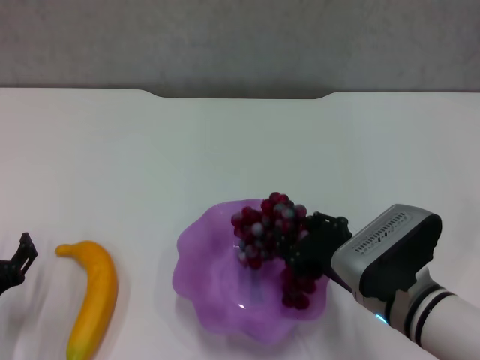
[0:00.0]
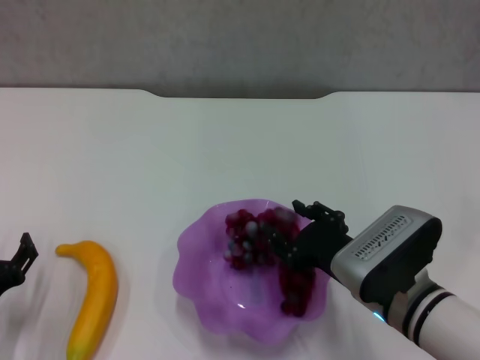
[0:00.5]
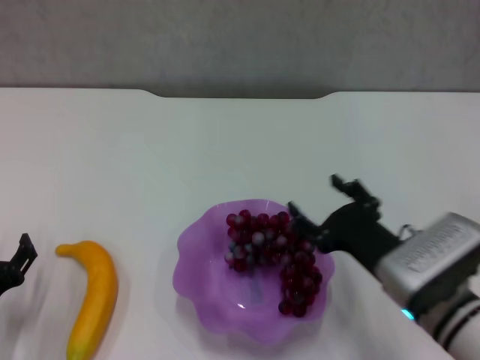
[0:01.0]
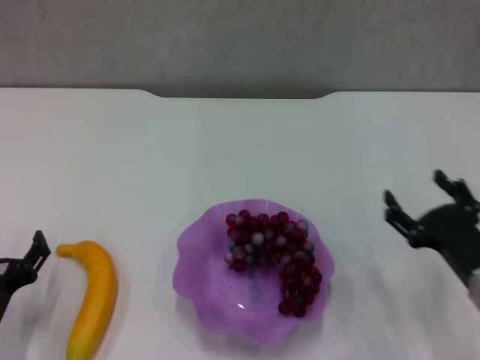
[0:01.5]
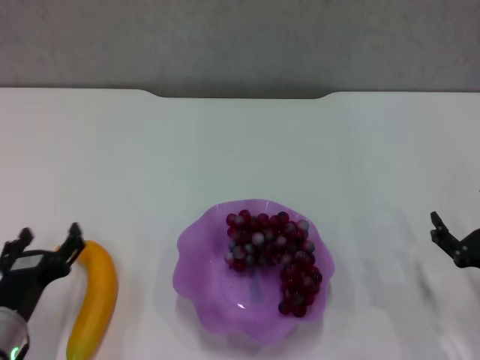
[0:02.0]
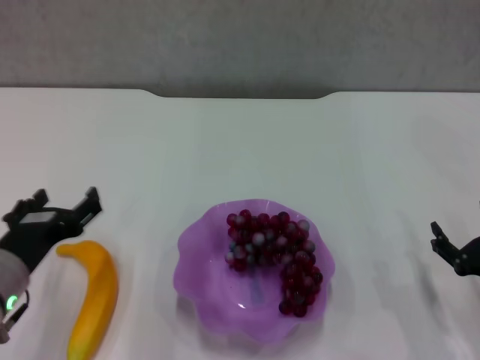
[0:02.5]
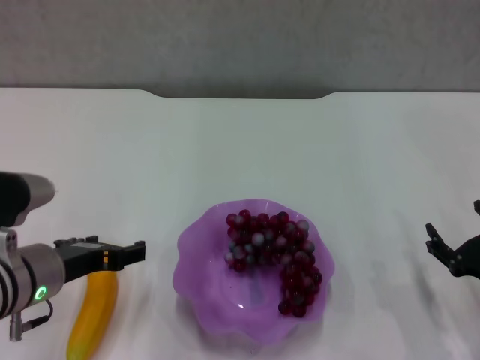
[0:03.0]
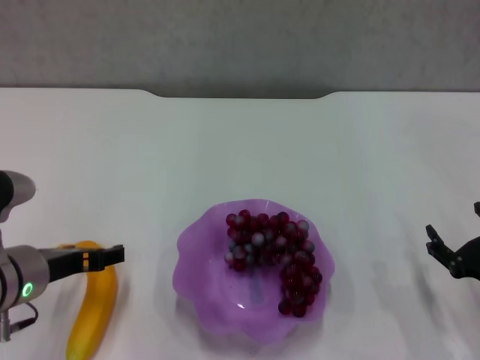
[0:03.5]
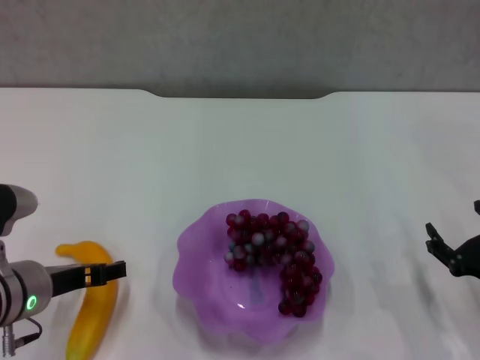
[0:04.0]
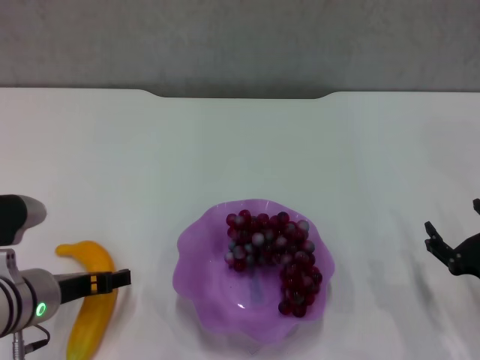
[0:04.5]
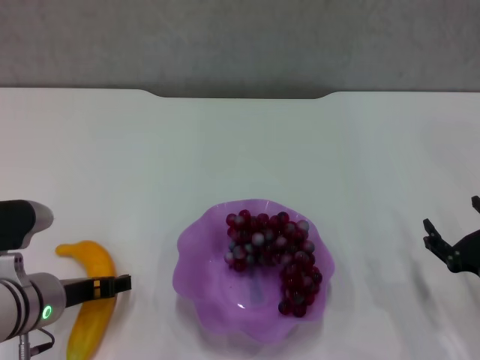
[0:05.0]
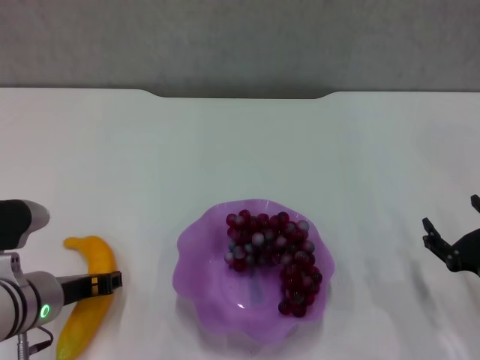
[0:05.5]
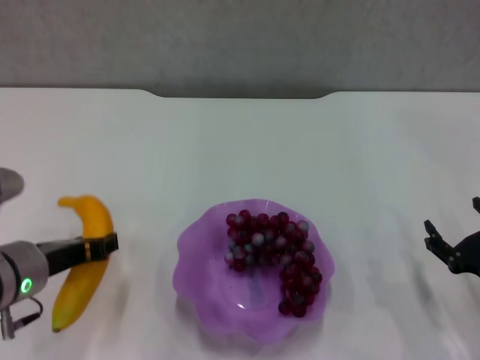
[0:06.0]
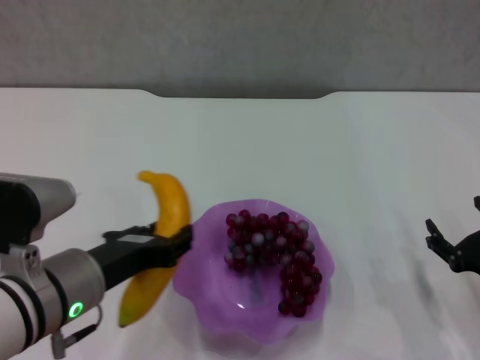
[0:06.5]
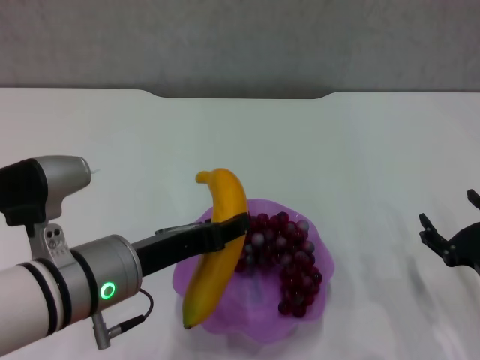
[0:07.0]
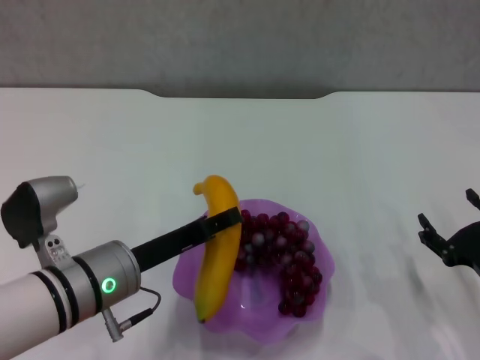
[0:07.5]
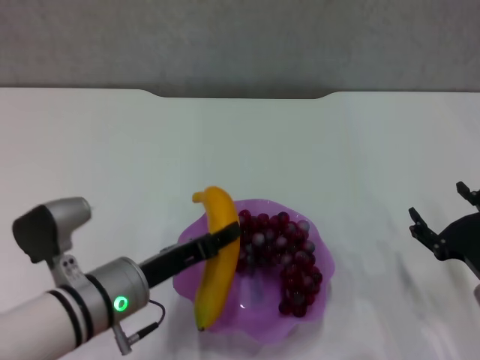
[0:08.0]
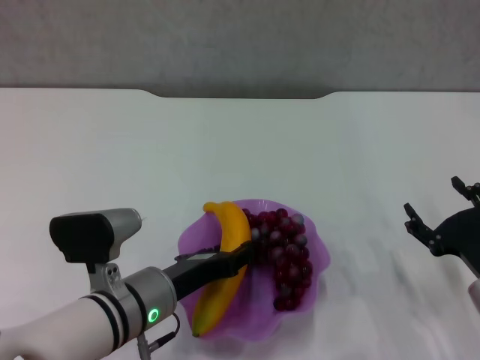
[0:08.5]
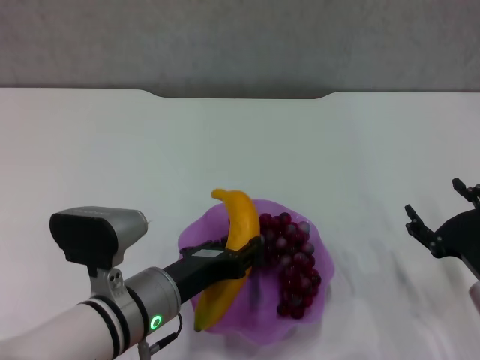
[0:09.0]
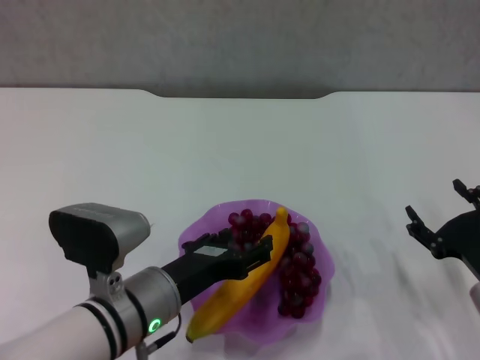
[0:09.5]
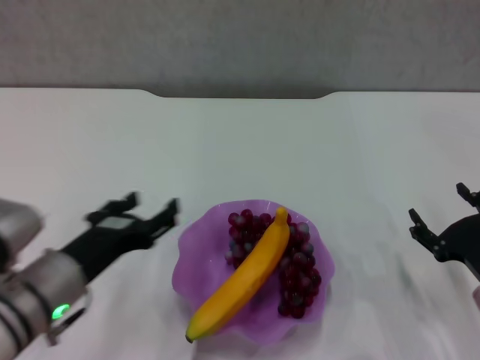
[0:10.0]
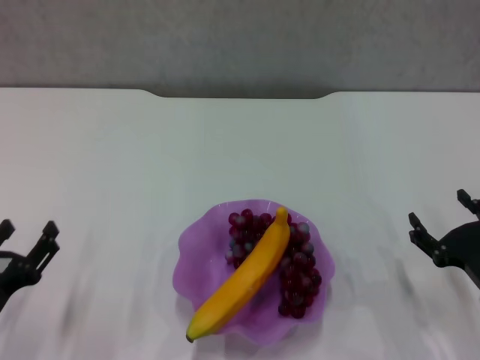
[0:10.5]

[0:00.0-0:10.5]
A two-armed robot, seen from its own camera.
Step, 0:01.5 to 0:05.5: Grasp the banana with left gripper.
Step, 0:06.0 to 0:09.0: Place the banana in the purple plate with left gripper.
0:00.0 to 0:02.0: The right gripper goes some 15 cm to the right, and opens.
0:02.0 to 0:04.0: The left gripper goes about 10 cm upward.
0:04.0 to 0:06.5: The left gripper heads to the right, covering some 5 cm, and closes its fingers.
0:06.5 to 0:08.5: The left gripper is displaced downward by roughly 10 cm.
0:08.5 to 0:10.5: The left gripper moves to the left and backward, about 15 cm, and opens its fingers.
